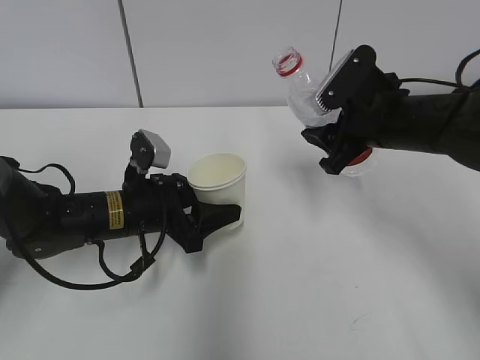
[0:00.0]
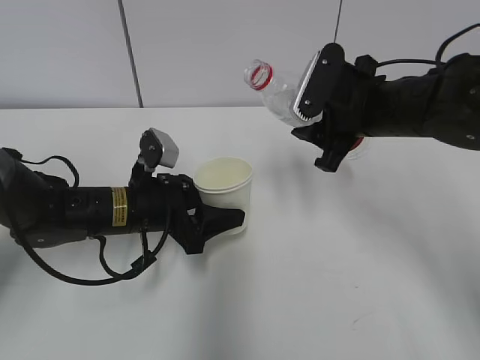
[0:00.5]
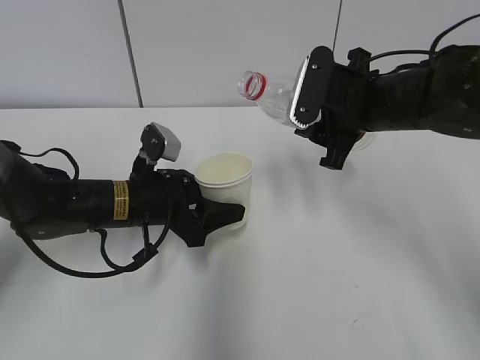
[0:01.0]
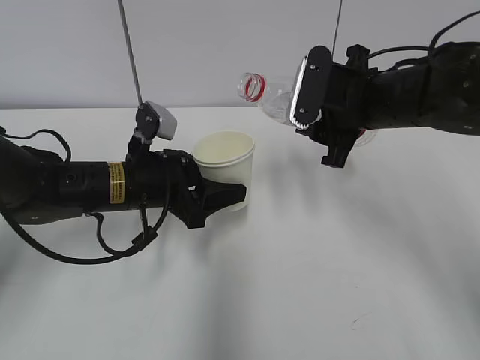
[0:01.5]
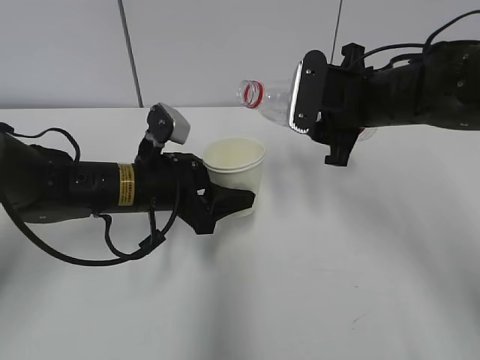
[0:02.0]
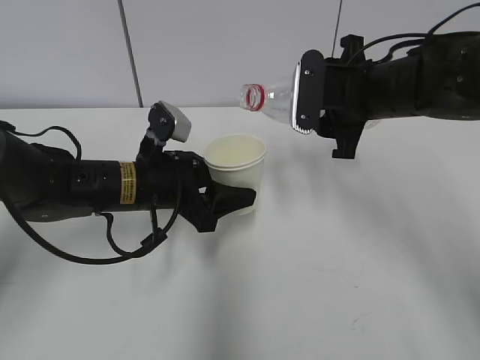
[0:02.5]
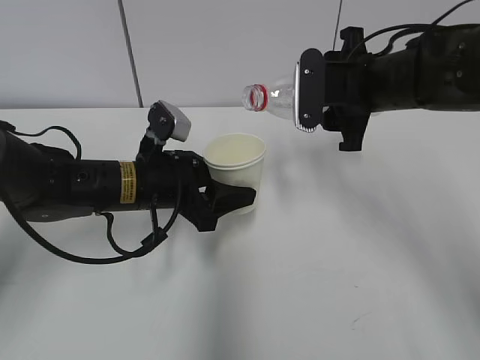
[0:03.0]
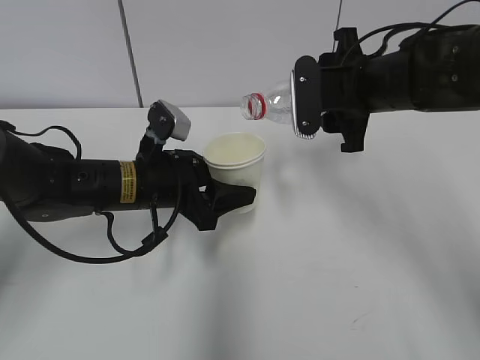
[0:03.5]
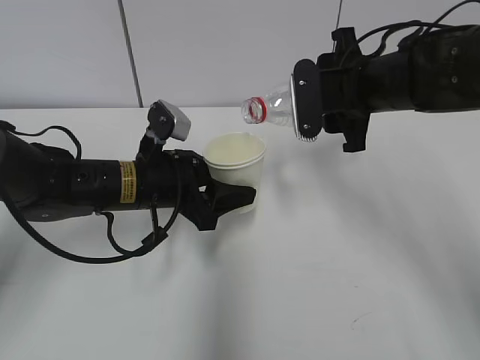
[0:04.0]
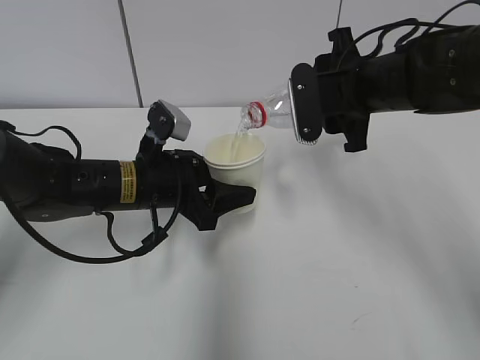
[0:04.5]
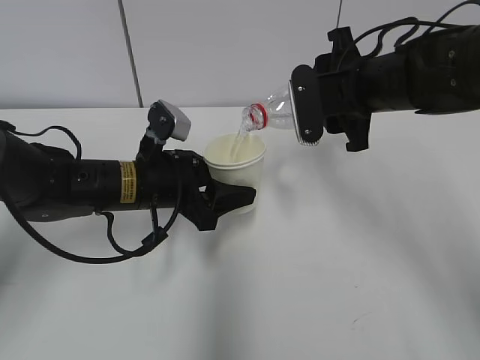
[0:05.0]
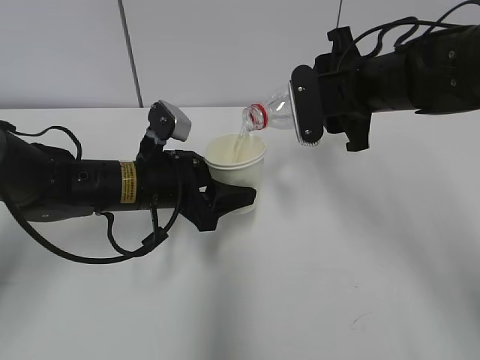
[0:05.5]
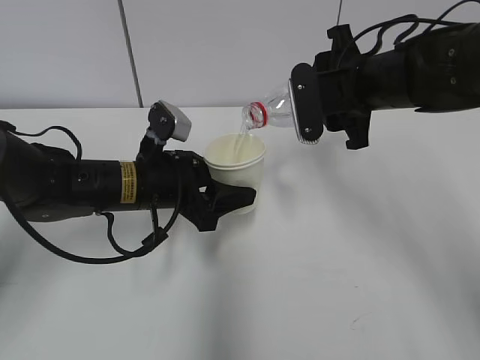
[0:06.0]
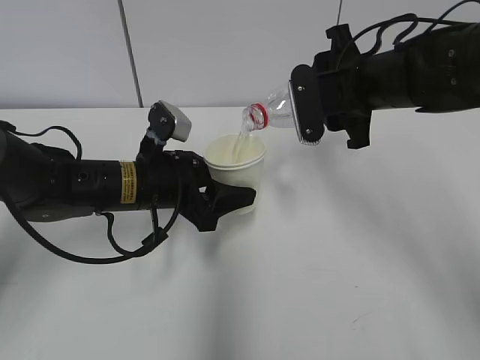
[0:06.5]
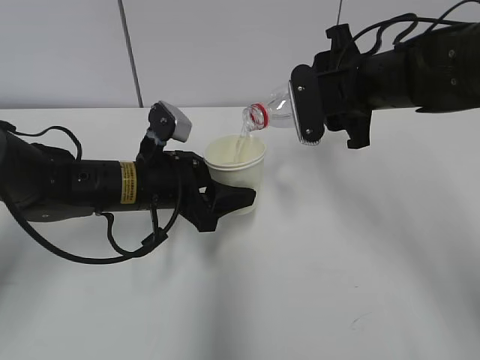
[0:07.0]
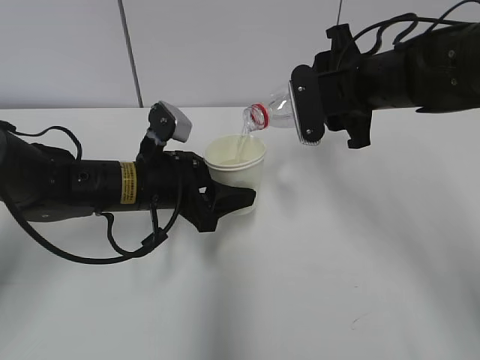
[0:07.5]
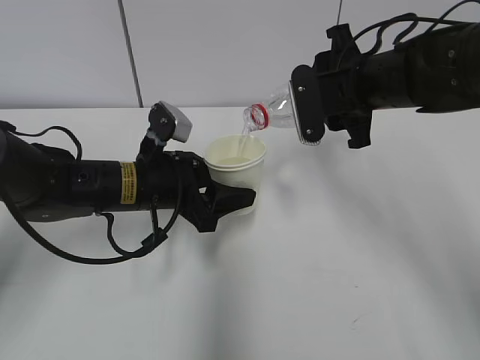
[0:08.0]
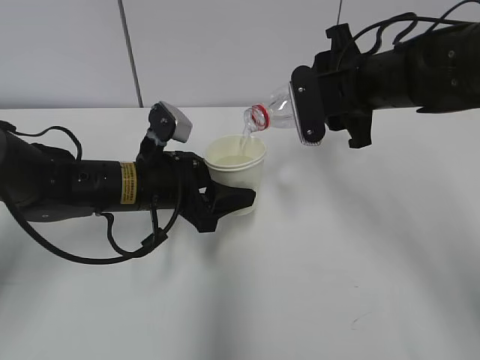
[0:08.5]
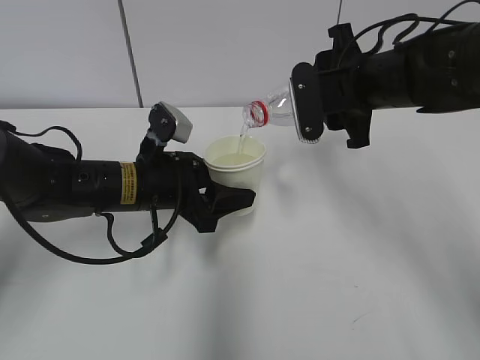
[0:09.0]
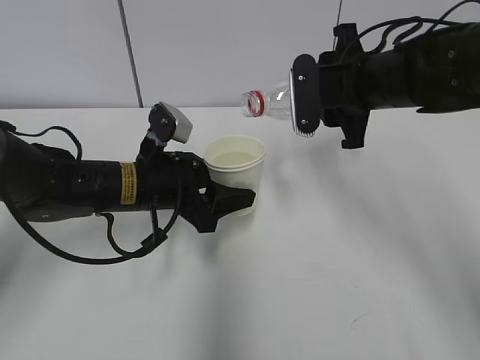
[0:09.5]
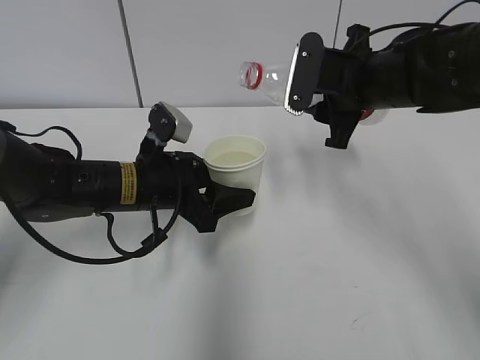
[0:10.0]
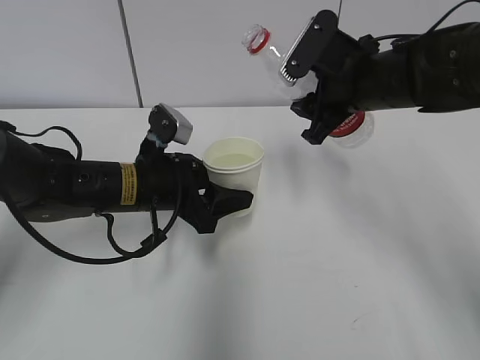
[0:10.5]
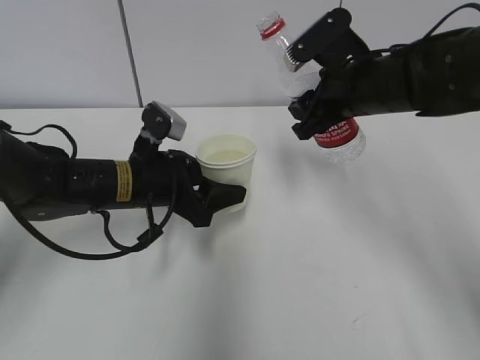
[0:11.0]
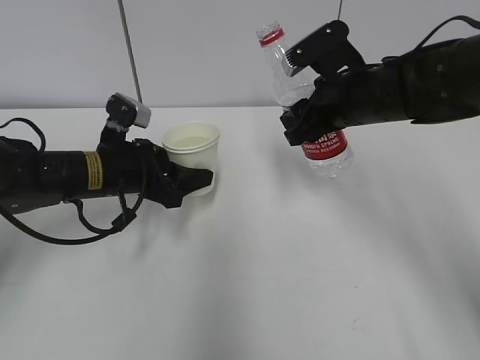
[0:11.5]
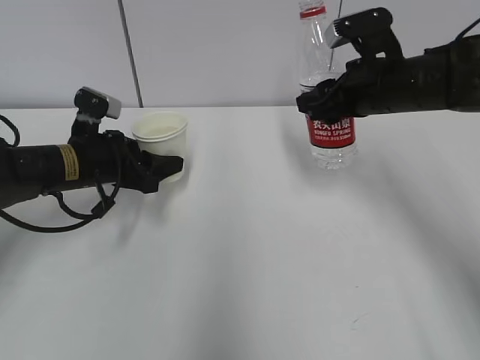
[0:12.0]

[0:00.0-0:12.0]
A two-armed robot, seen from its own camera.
Step, 0:01.0 to 0:05.5: Fill water with the left hand.
Step, 0:01.0 to 0:05.5: Pour water with the right hand.
Step, 0:07.0 to 0:11.5: Place the paper cup with the left hand.
0:02.0 to 0:04.0: There are only small adjustments of the grippers.
0:04.0 to 0:06.0: Both grippers stay about where they are.
0:06.0 to 0:08.0: Neither gripper changes place.
0:10.0 to 0:12.0: The left gripper shifts some 10 cm to the left.

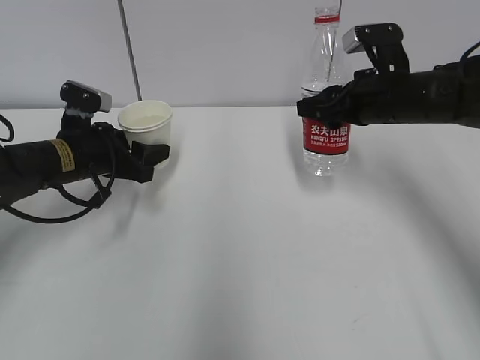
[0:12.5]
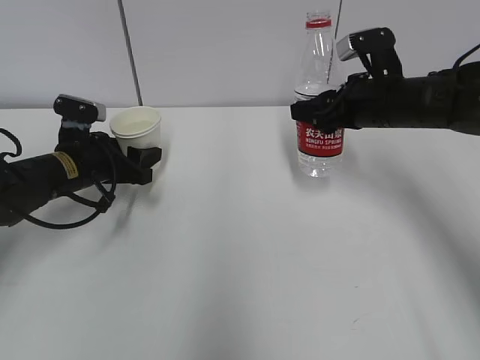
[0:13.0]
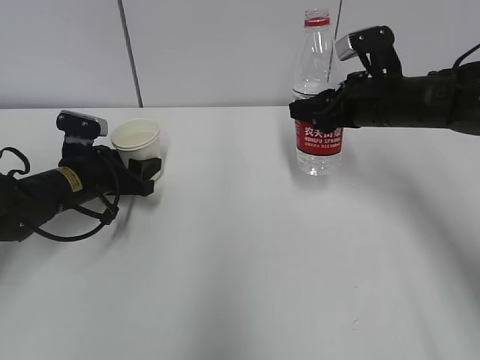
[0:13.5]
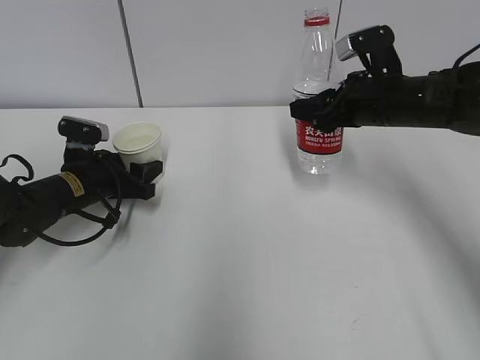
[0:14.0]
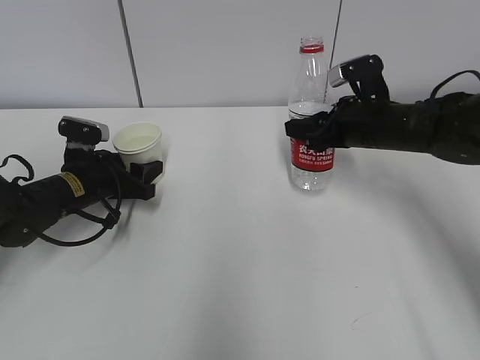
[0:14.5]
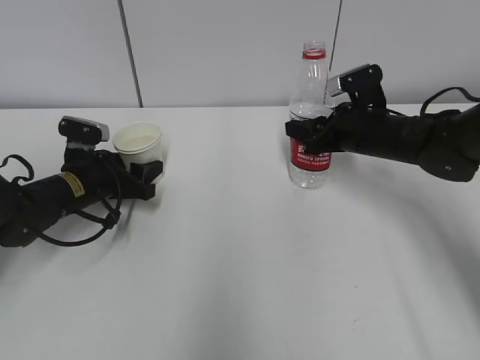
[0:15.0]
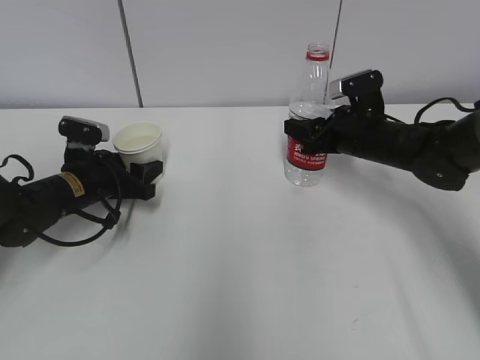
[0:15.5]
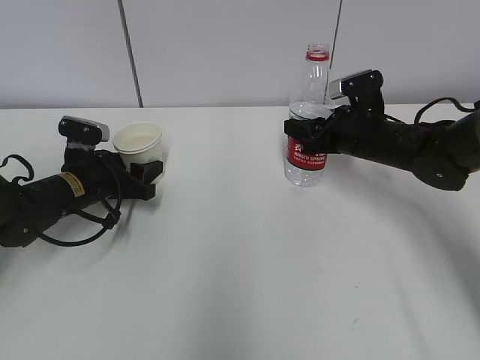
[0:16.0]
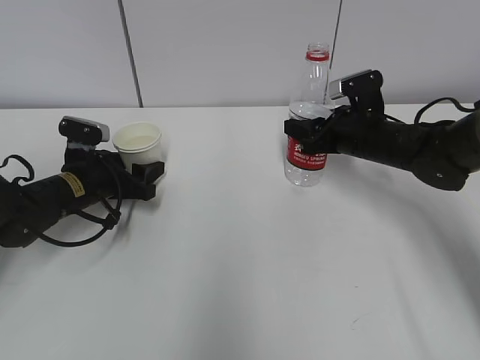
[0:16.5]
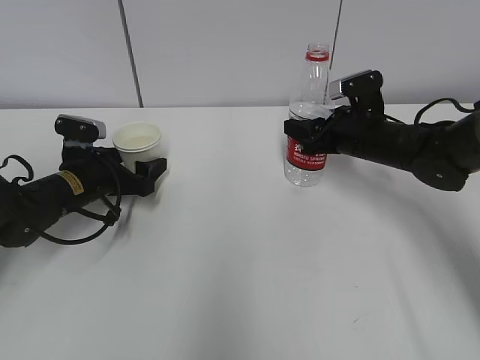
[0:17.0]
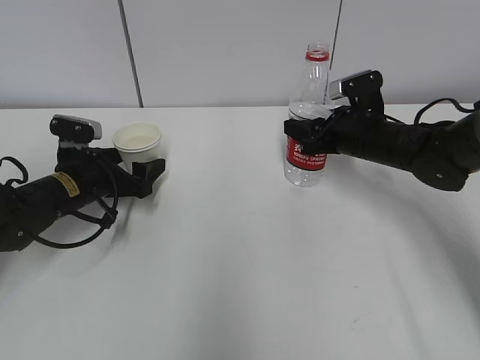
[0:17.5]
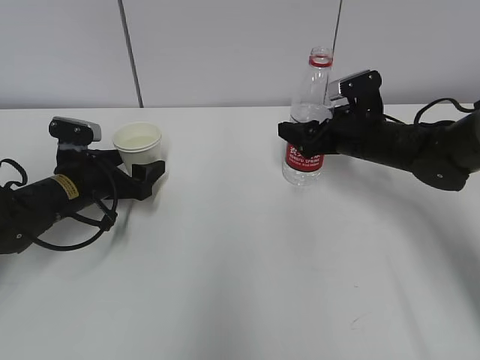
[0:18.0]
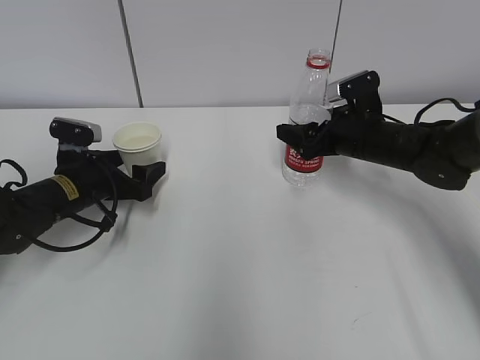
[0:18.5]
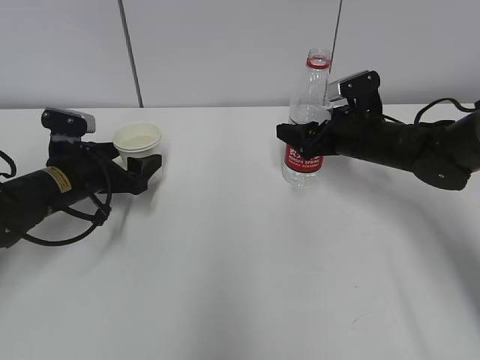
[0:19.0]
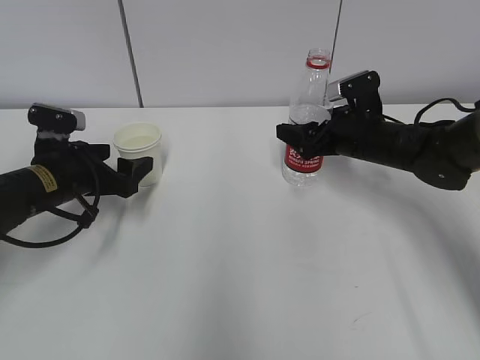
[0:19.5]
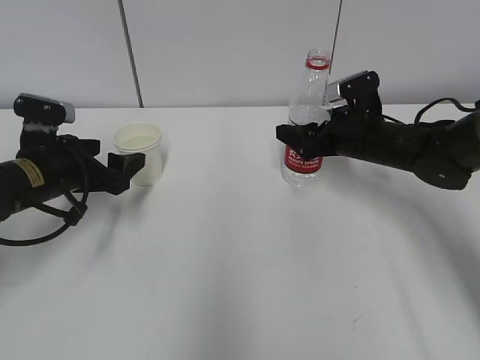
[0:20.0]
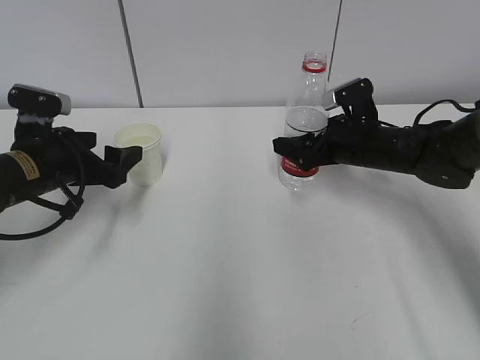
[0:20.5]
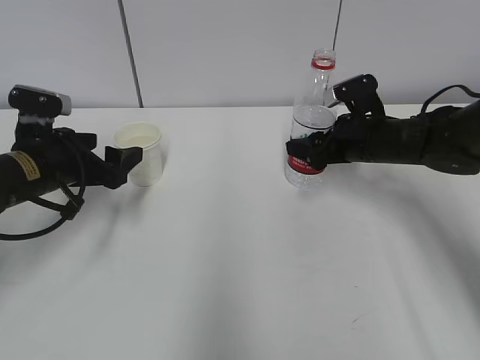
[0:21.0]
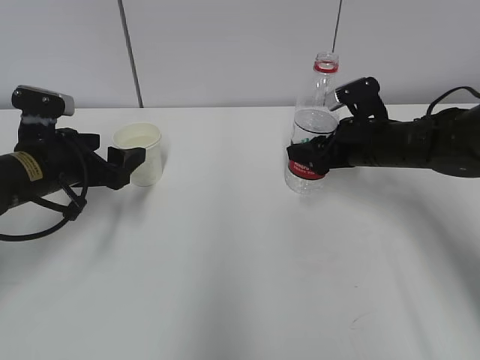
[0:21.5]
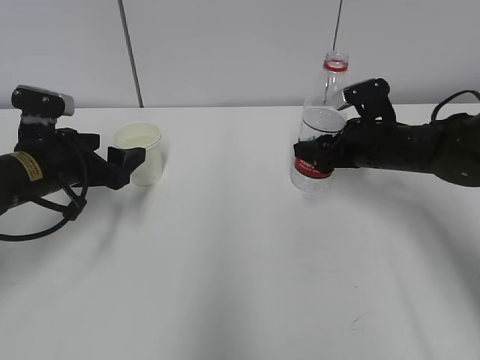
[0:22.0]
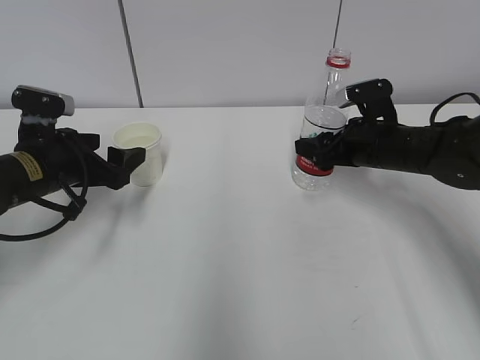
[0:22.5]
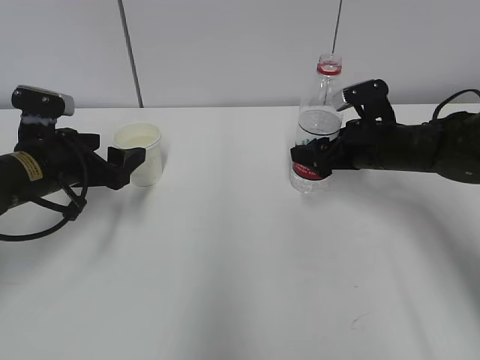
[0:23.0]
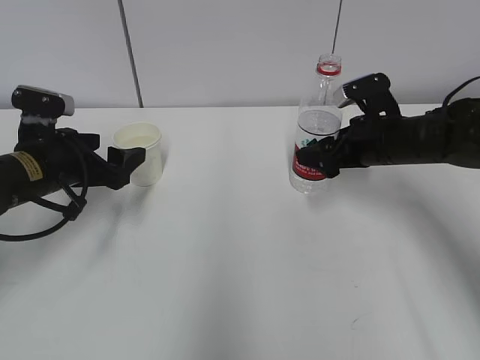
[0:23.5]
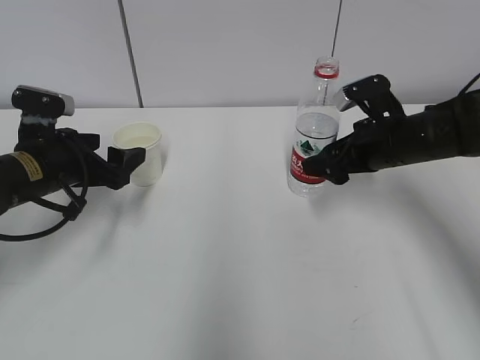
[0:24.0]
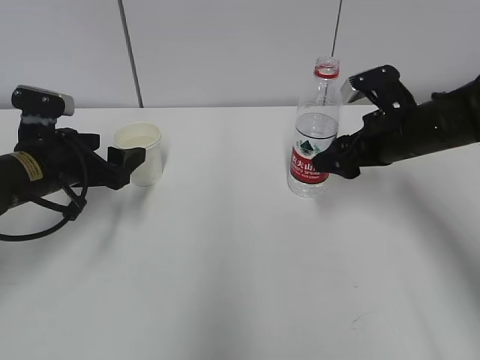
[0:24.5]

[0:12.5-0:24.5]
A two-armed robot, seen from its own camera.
Step, 0:12.5 to 0:17.0: Place the water bottle with the right hand.
0:12.5 to 0:14.5: The left gripper moves downward, about 5 cm.
0:14.5 to 0:16.5: There are only small adjustments of the grippers.
0:16.5 to 0:18.5: The left gripper opens. Meanwhile the right gripper opens.
0:18.5 to 0:20.5: The left gripper goes some 5 cm upward.
0:20.5 to 0:22.5: The right gripper closes.
0:22.5 to 0:24.5: The right gripper ends up approximately 5 cm from where it was.

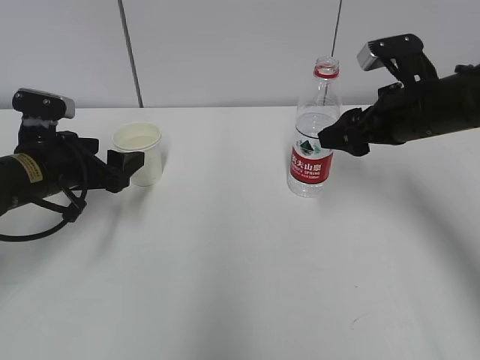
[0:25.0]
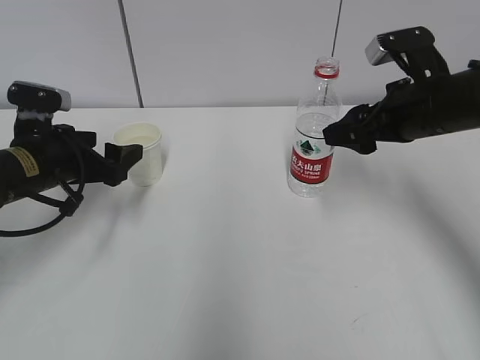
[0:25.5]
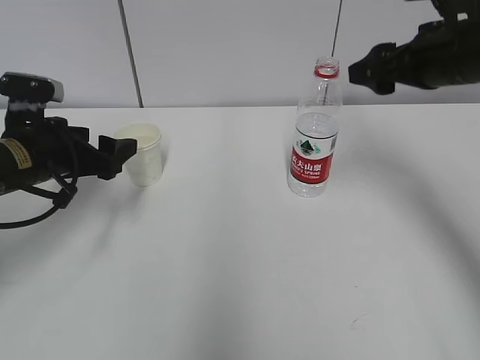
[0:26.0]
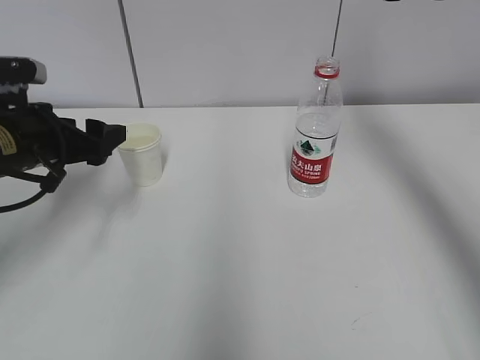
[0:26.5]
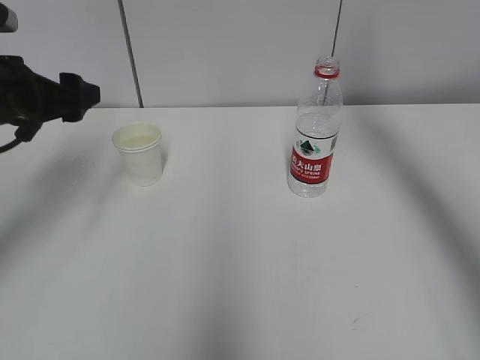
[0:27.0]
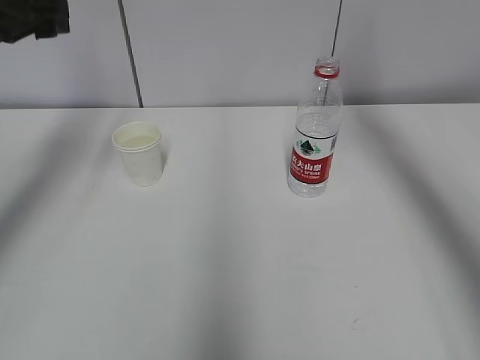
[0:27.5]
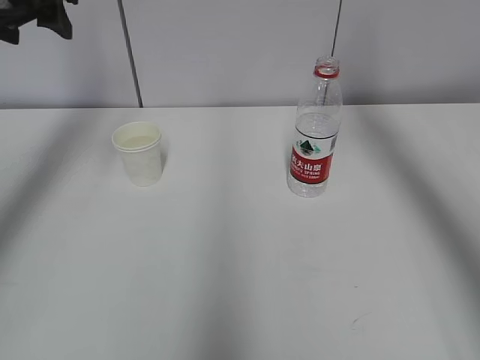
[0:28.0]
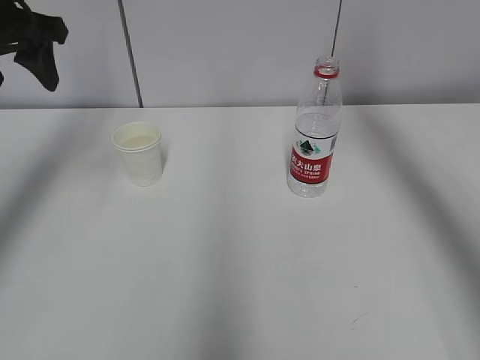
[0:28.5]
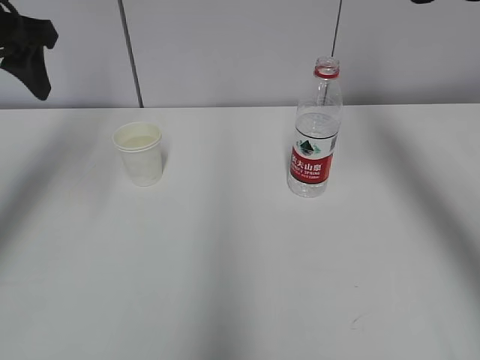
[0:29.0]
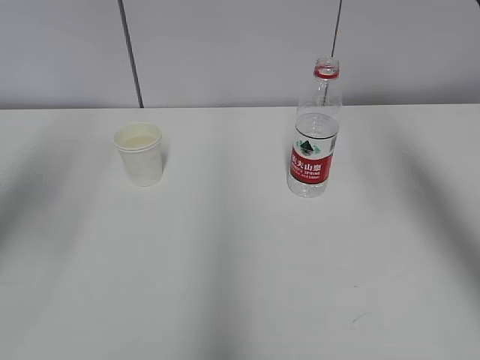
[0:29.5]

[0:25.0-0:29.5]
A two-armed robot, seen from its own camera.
0:25.0 to 0:27.0: The grippers both shift upward by roughly 10 cm.
0:27.0 to 0:29.5: The left gripper travels upward and backward by roughly 15 cm.
